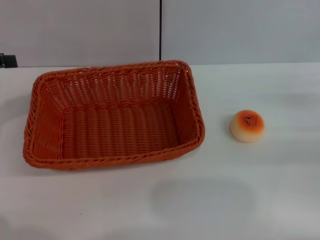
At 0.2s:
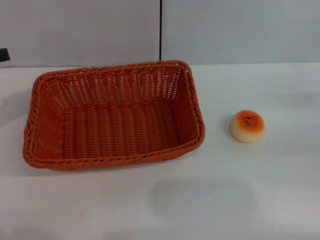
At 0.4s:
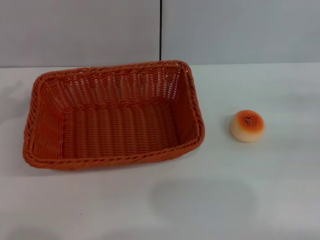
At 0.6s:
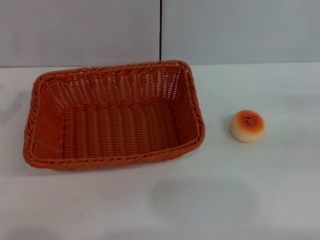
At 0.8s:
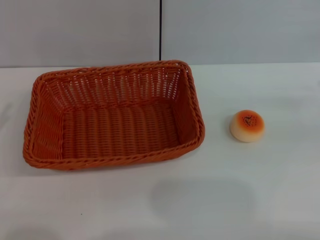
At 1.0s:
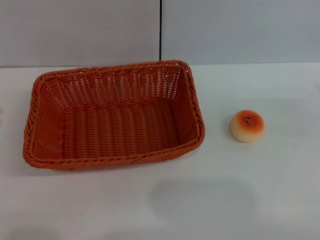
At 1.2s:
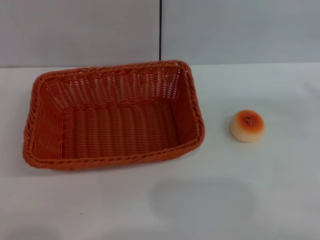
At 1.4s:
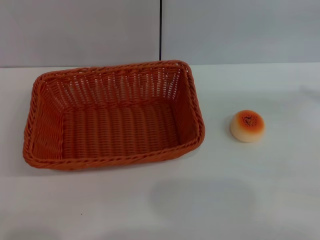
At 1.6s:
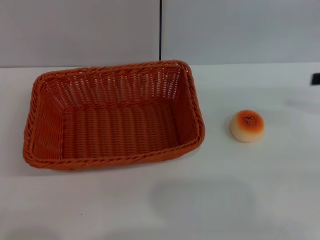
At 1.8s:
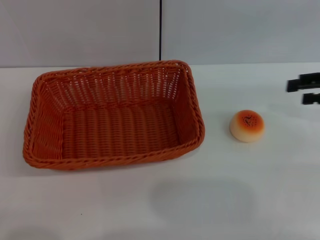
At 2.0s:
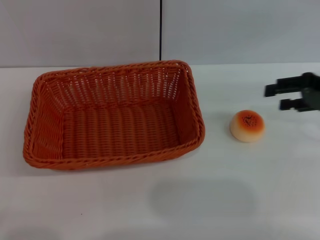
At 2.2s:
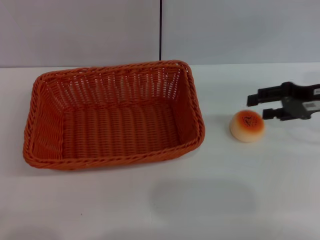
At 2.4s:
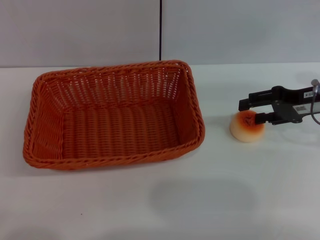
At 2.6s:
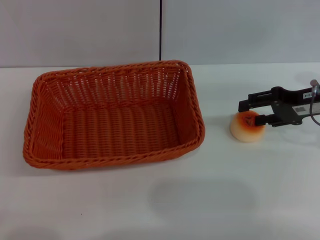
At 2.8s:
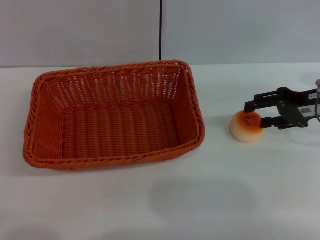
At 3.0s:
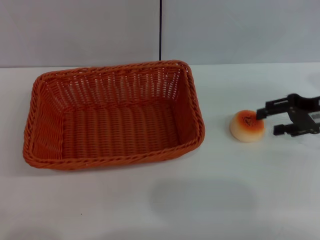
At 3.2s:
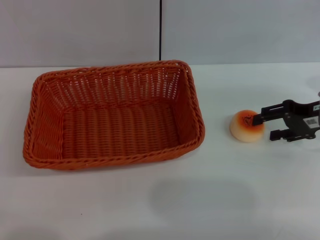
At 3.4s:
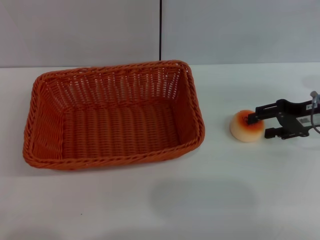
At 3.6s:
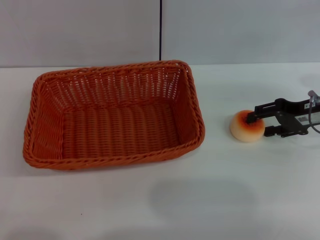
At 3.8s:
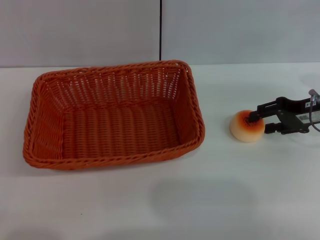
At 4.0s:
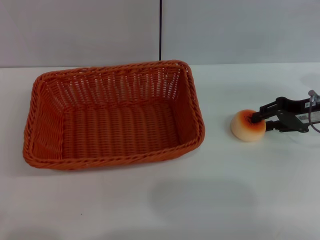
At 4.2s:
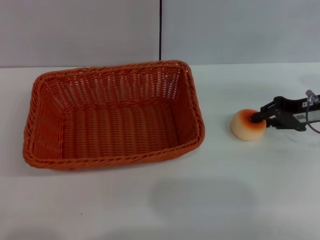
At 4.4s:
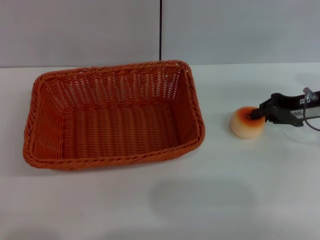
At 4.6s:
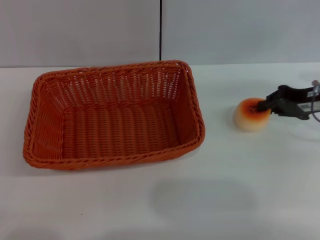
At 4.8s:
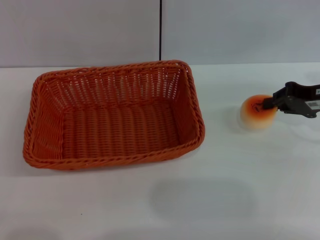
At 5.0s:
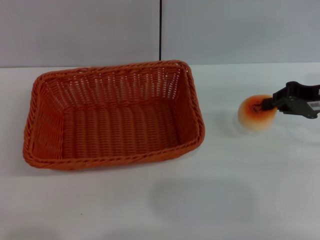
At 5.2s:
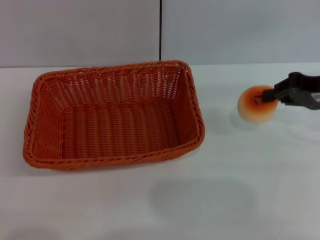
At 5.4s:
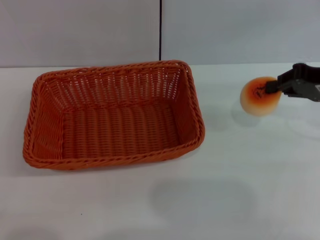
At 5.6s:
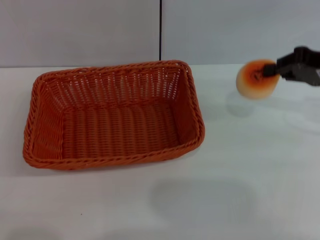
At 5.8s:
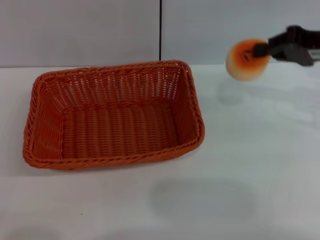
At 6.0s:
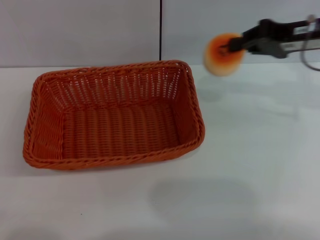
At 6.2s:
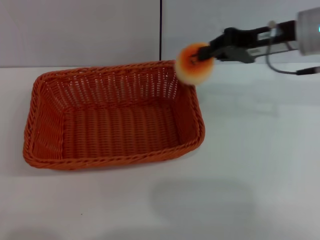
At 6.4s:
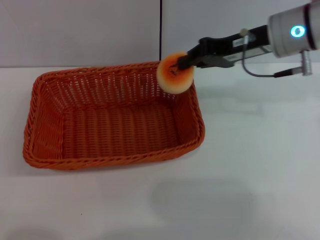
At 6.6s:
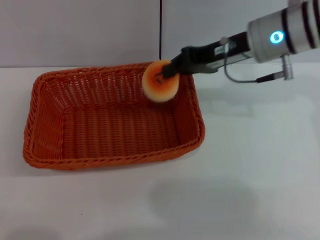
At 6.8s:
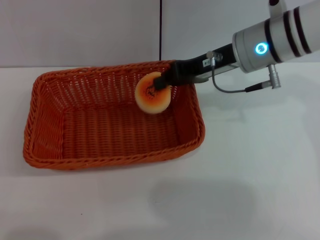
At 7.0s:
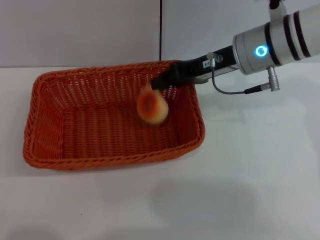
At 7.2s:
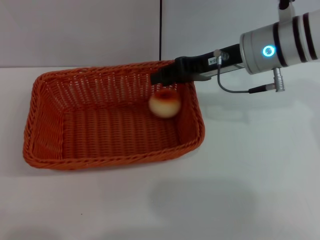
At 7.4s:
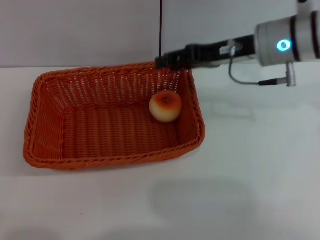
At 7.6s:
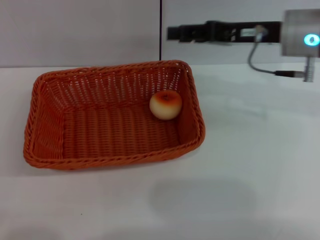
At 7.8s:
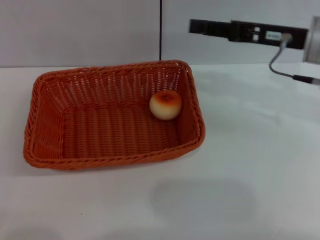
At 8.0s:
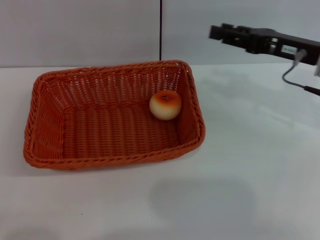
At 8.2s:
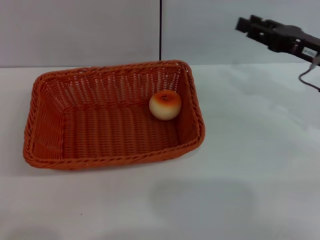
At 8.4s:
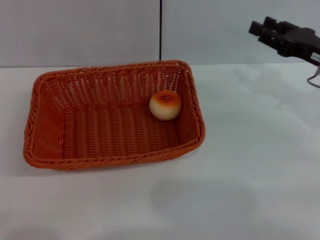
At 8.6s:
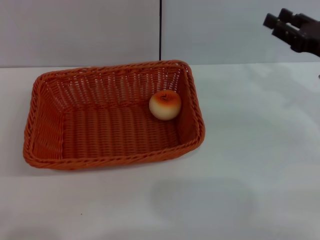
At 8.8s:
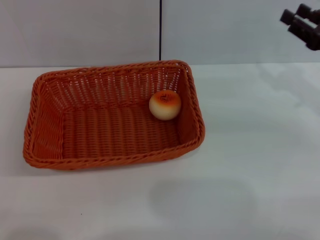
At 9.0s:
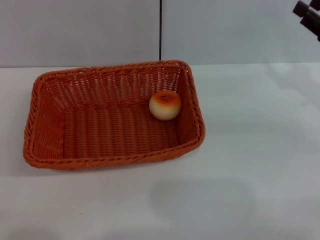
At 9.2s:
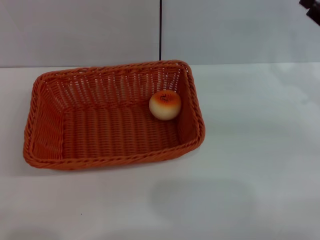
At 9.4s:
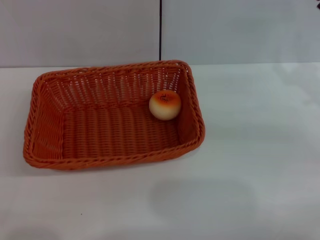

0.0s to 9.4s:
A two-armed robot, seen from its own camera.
Step, 0.0s to 5.2s: Pick up the egg yolk pastry with the right gripper.
Step, 5.4s to 7.4s: Place the egg yolk pastry into the basket with the right gripper.
1.6s to 3.2s: The right gripper heads downward and to the left, covering approximately 10 cm.
3.2s to 4.8s: The right gripper closes its fingers.
4.8s to 6.2s: The right gripper heads to the left and upward, covering about 10 cm.
6.2s to 7.8s: The right gripper travels to the left and back again, roughly 5 cm each way, and opens.
7.8s to 9.4s: The right gripper heads to the right and downward, covering some 10 cm.

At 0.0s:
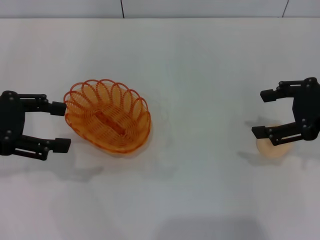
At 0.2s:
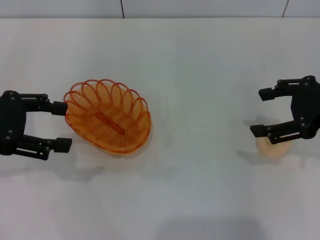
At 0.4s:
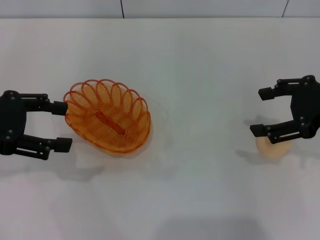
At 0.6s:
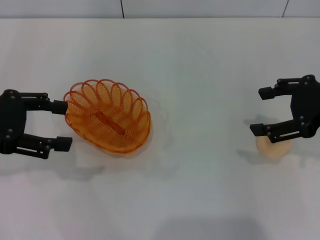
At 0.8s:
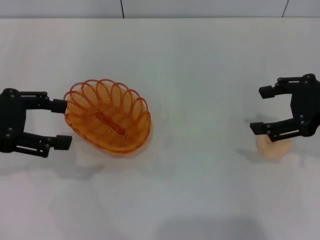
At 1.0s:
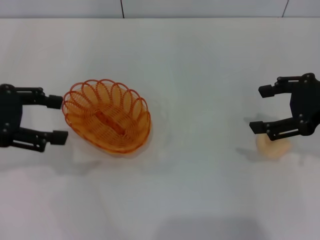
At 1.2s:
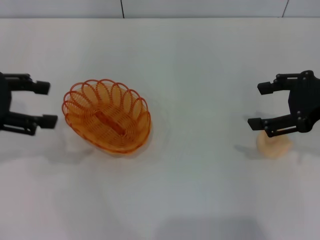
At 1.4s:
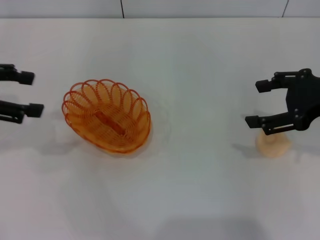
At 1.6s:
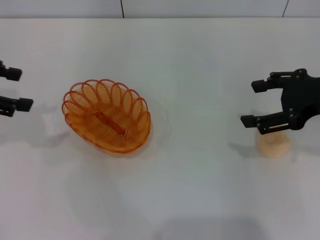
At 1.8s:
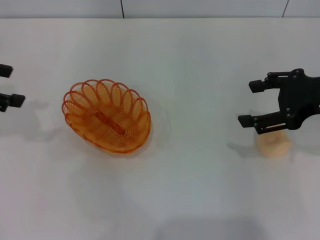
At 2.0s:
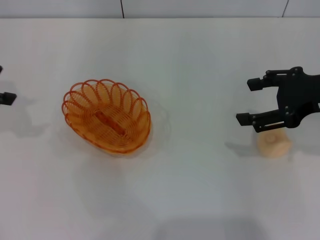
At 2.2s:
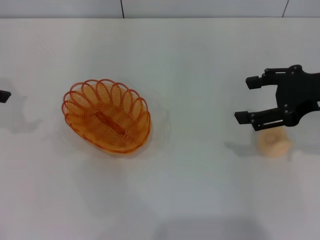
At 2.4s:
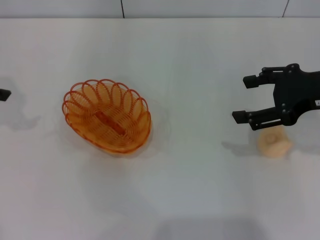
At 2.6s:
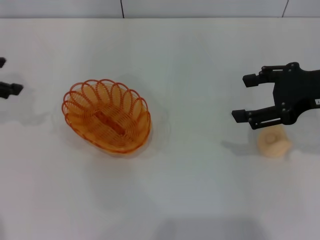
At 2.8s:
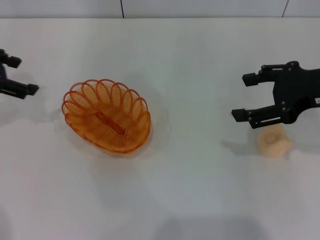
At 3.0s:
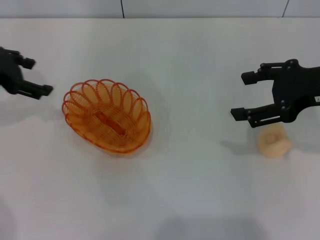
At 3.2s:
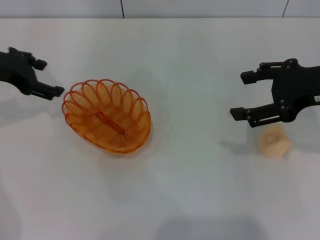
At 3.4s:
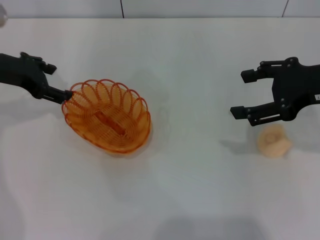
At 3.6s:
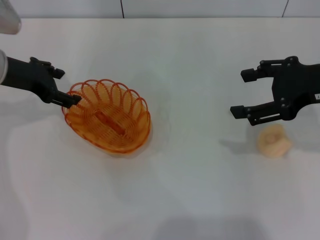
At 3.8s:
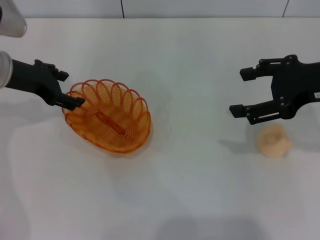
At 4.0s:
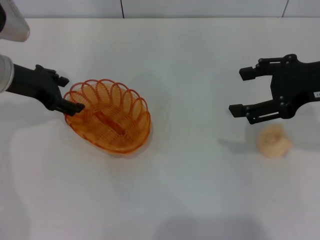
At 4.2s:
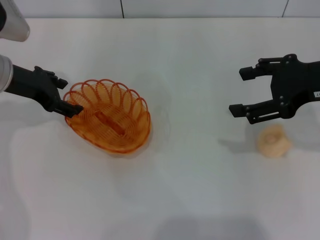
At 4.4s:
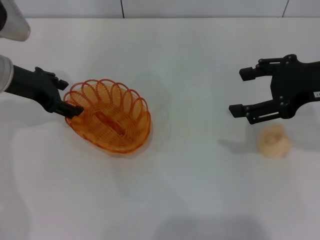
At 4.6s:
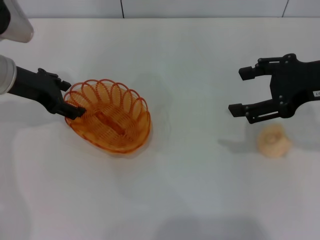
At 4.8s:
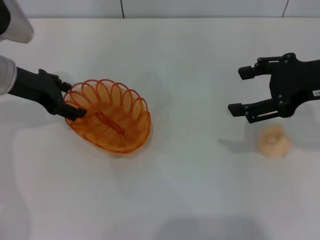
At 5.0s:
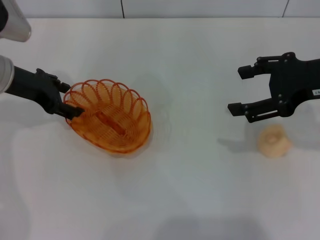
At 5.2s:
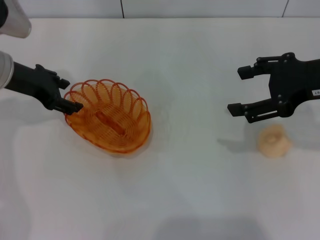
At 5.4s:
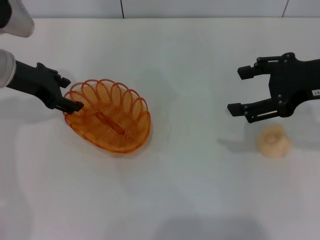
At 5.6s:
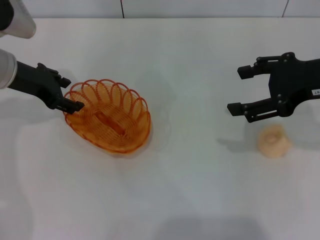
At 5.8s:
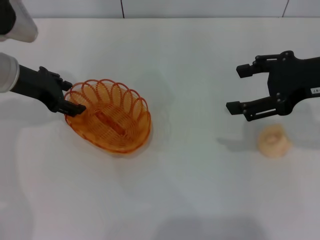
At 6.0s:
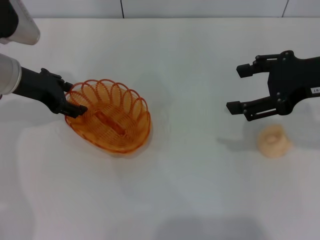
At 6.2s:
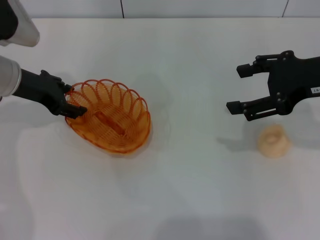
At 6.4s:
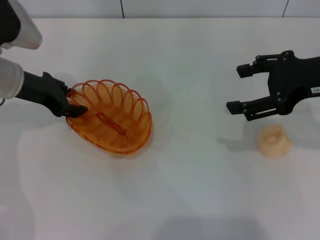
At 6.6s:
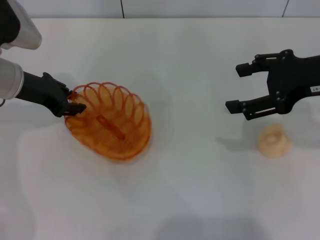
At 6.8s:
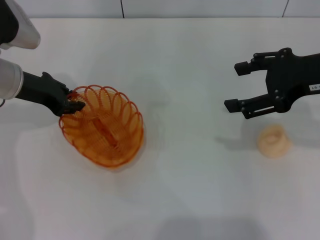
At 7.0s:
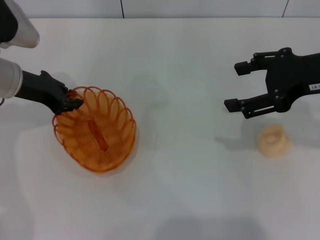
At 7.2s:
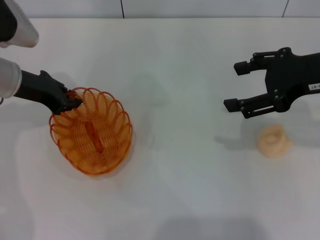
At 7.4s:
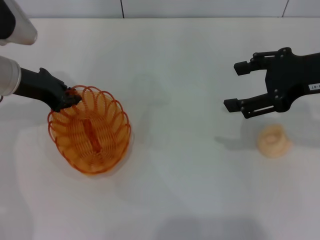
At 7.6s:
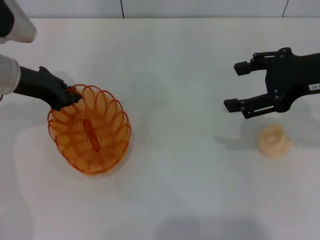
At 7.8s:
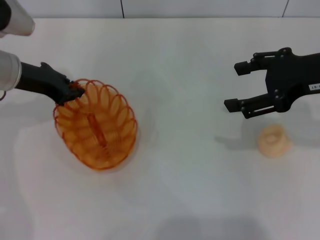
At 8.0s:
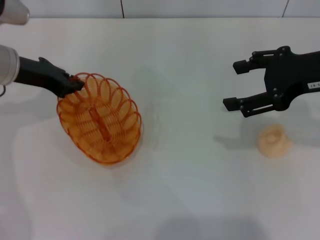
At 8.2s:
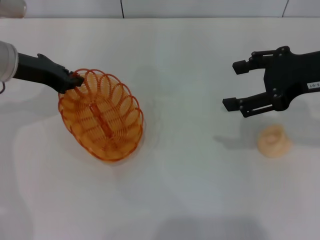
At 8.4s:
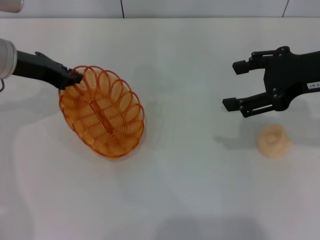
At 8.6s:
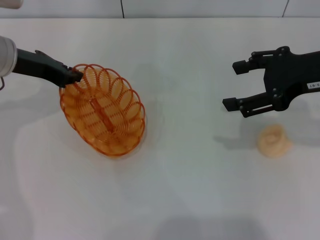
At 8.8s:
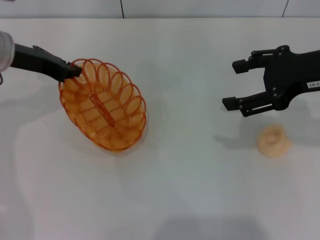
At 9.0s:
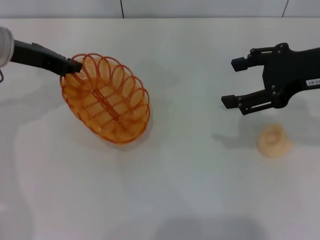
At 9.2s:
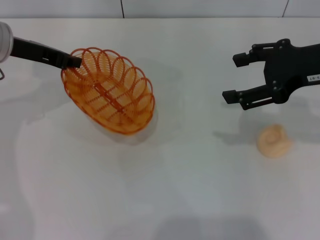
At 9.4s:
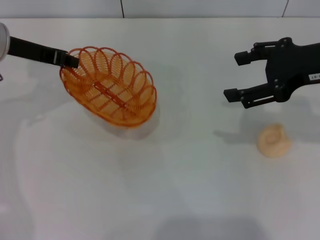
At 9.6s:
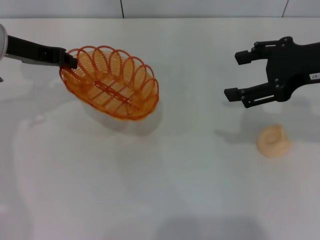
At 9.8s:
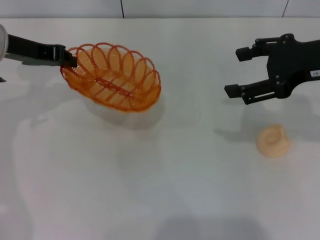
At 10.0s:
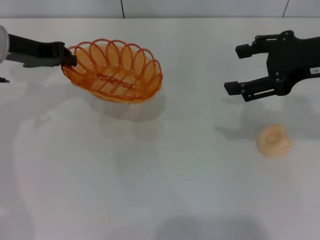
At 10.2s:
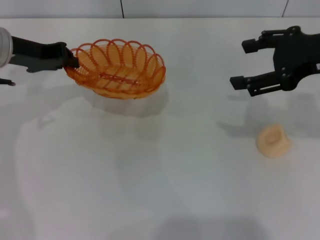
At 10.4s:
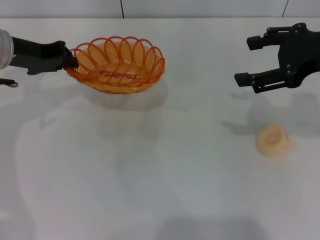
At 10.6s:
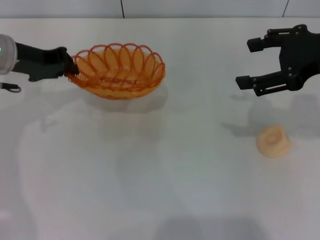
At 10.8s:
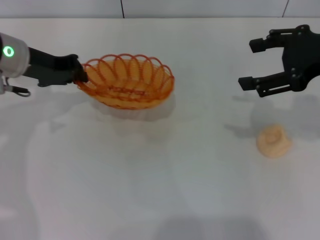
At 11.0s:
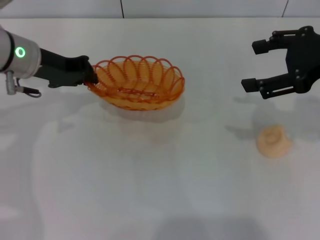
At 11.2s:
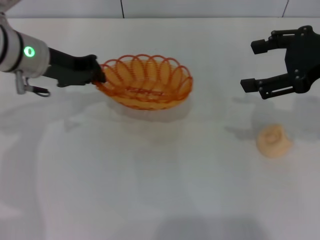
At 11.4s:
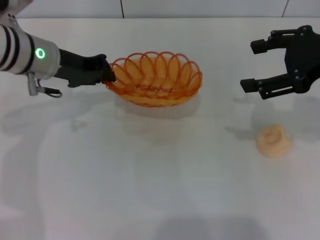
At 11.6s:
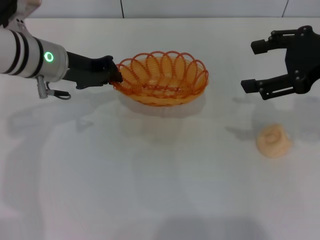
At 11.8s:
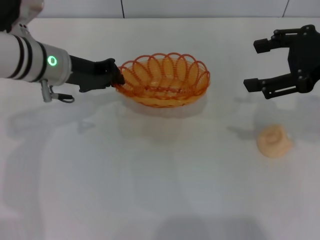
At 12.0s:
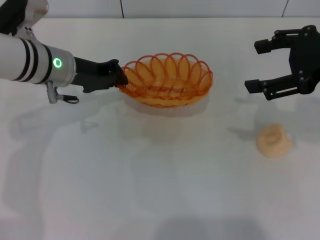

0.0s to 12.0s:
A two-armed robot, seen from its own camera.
Step, 0.0s to 9.0s: Pick up the basket with the left gripper.
0.0s to 1.6s: The left gripper shifts by roughly 5 cm.
1.6s to 3.0s: The left gripper goes some 5 cm forward.
3.0s to 4.4s: The left gripper moves roughly 5 cm.
4.4s to 6.0s: Both grippers stay put.
6.0s to 7.6s: The left gripper closes up.
10.4s to 12.0s: The left gripper shifts some 5 cm to the right.

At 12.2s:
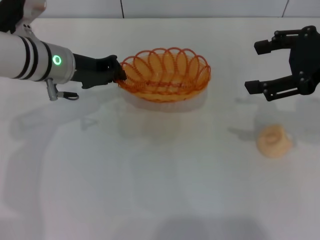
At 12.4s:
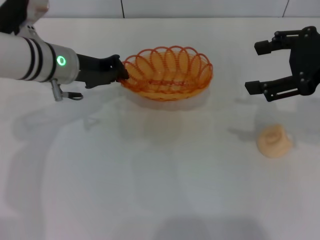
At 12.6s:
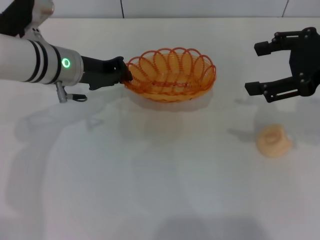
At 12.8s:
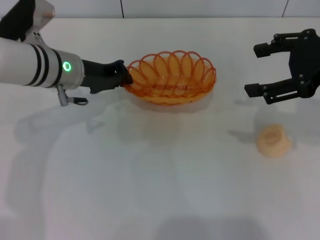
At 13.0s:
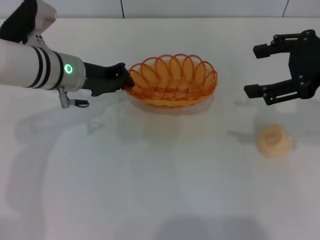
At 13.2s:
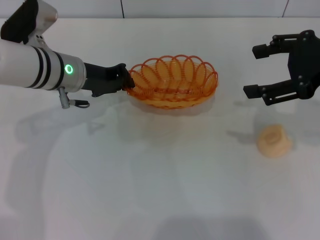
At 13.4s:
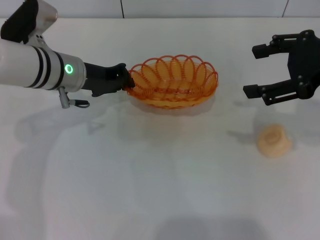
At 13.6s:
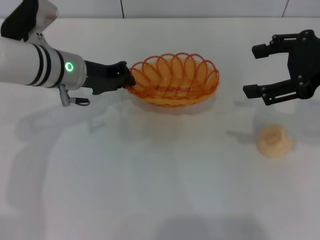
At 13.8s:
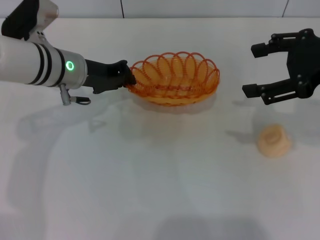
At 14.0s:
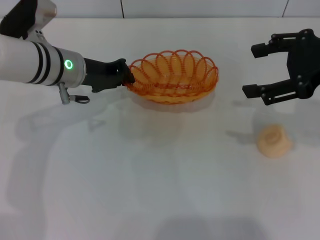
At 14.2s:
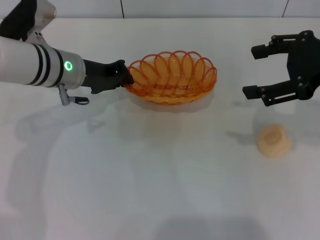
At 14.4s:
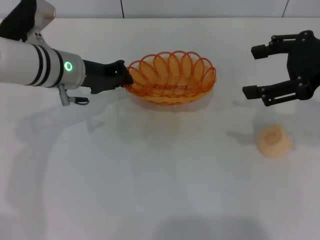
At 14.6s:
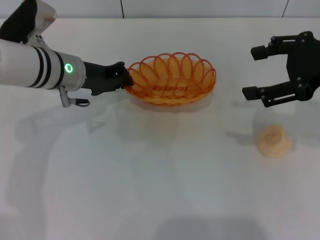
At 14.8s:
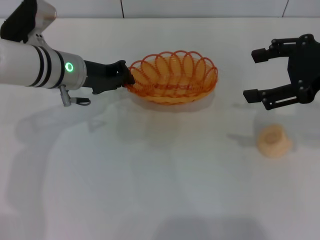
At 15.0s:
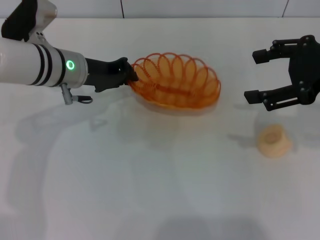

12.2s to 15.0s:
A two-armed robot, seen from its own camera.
12.2s to 13.6s: The grippers move only a little.
13.6s to 15.0s: Both grippers stay about where they are.
